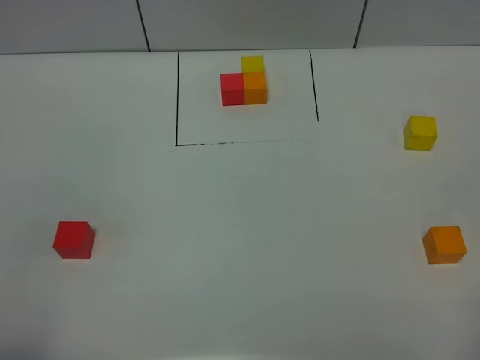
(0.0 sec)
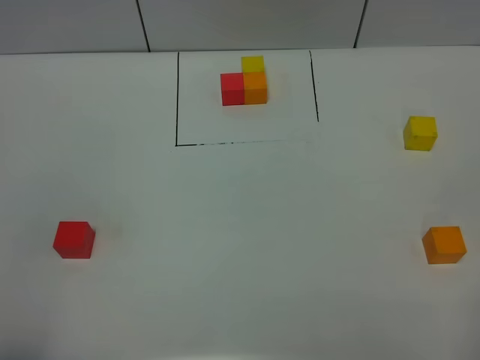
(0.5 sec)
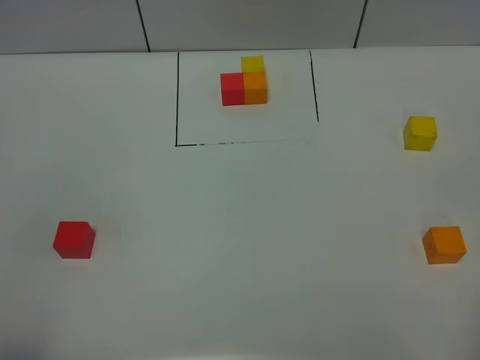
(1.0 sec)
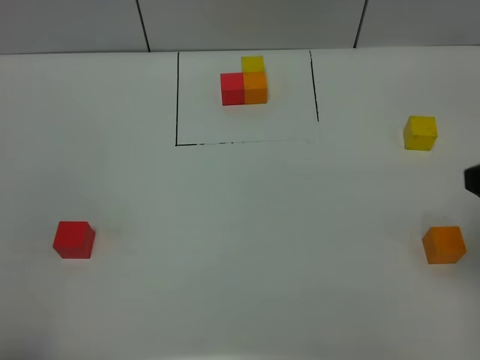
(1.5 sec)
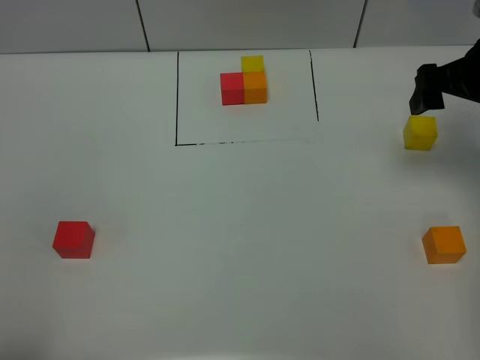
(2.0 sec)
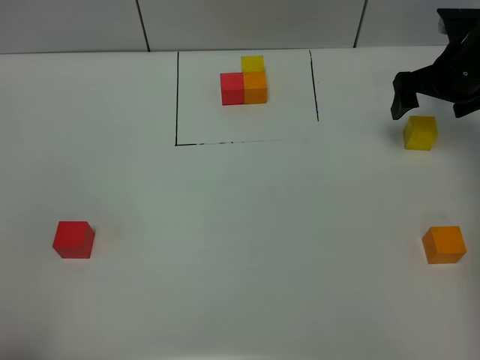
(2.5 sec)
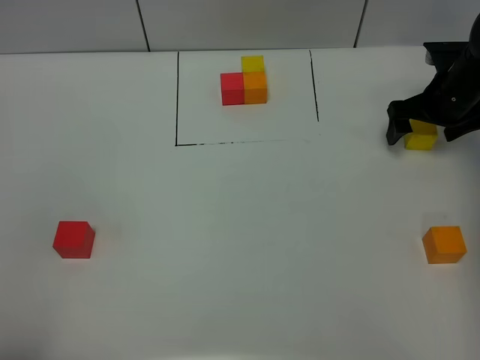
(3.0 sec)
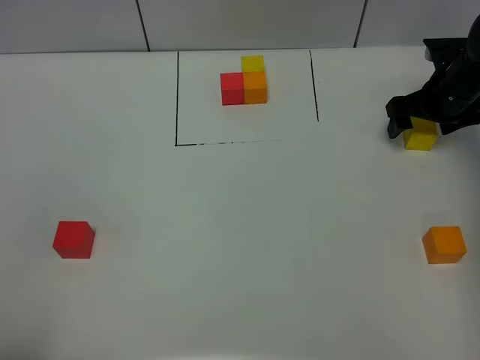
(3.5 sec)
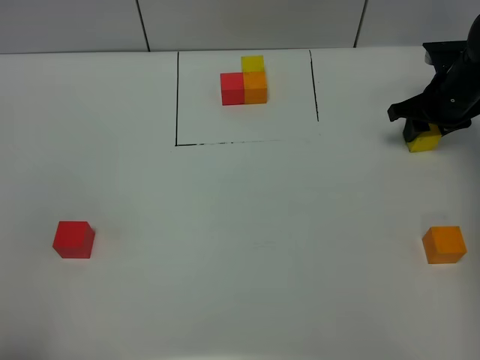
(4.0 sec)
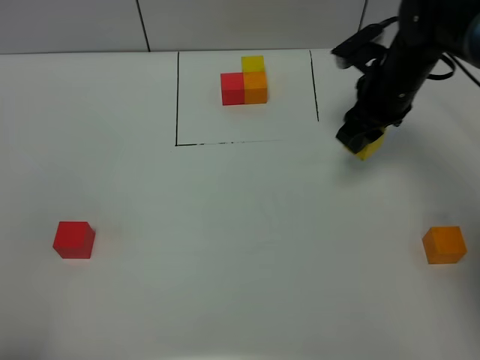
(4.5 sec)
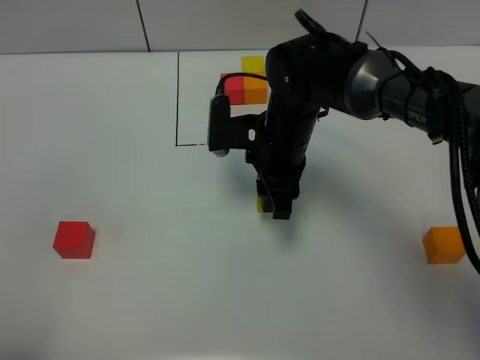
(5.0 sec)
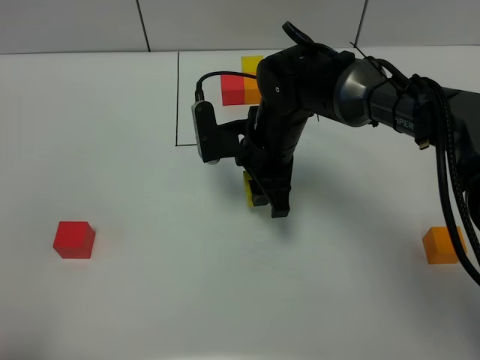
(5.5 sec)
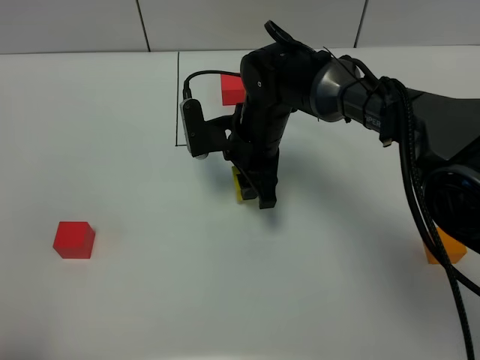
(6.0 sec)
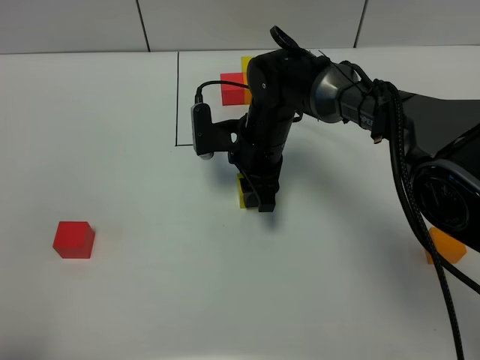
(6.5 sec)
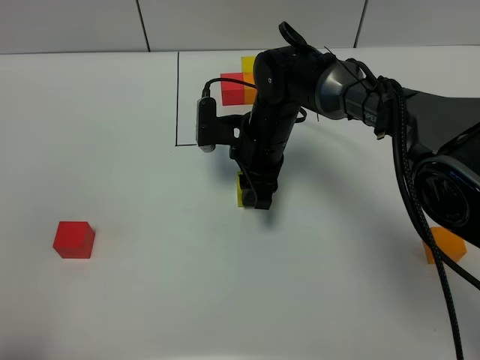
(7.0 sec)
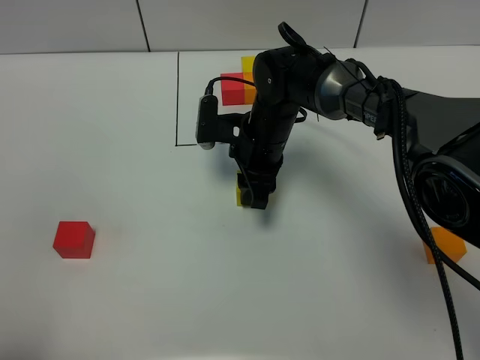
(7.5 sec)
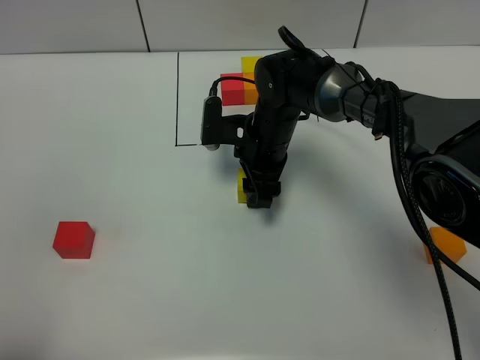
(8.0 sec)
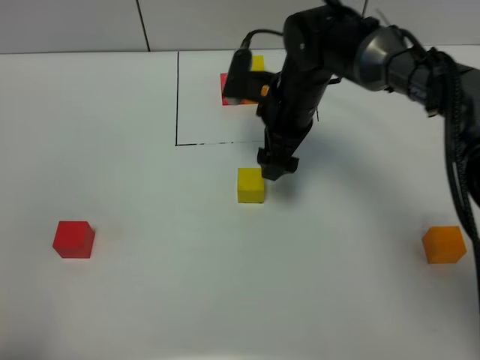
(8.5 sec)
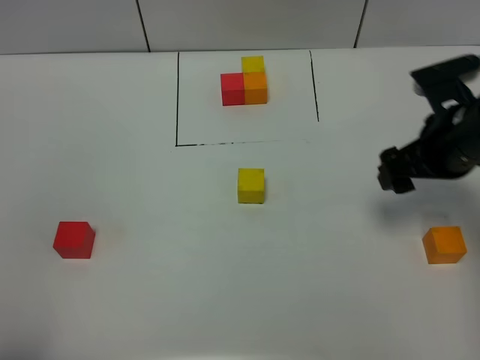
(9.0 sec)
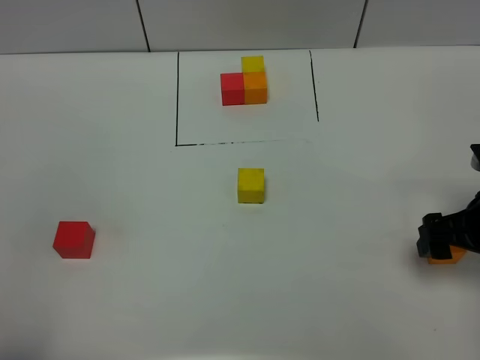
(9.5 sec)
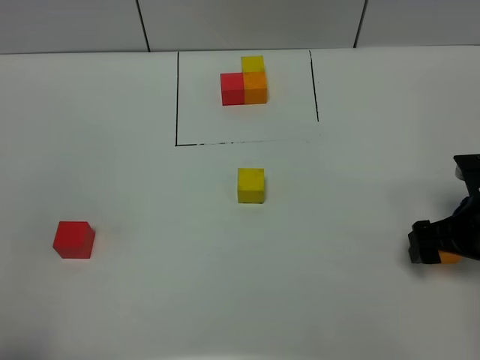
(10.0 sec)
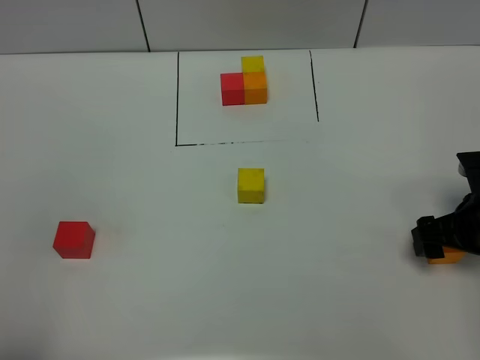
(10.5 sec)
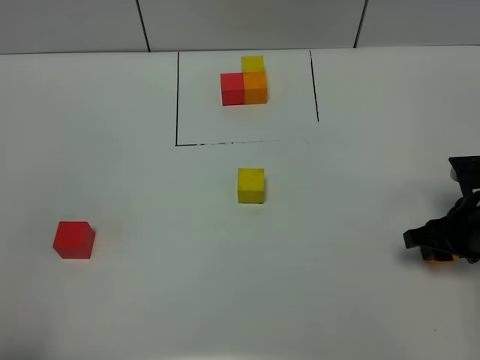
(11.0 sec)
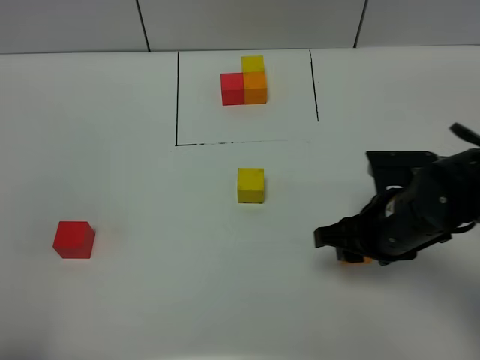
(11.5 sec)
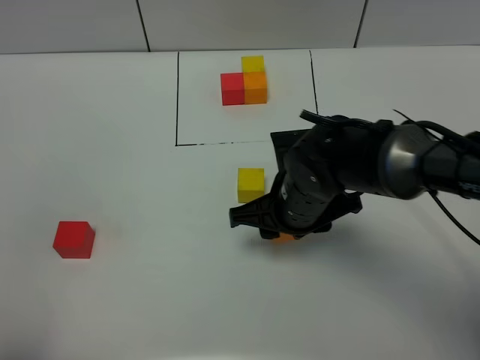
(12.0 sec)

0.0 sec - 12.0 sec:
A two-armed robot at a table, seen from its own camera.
Task of the whole recording: According to the building block template in front, assemble the scattered blocks together.
Step, 0.0 sec - 7.5 sec: Put the yellow build block in the center of the table.
0.0 sec - 2.0 sec: The right gripper travels forward by about 35 cm.
2.0 sec - 4.0 sec: The right gripper travels downward and forward by some 15 cm, and closes up.
4.0 sec - 6.0 sec: The right gripper heads to the left, covering approximately 30 cm.
6.0 sec - 8.0 sec: The right gripper opens up.
8.0 sec - 10.0 sec: The right gripper heads to the right and backward, covering approximately 30 cm, and opens up.
10.0 sec - 12.0 sec: The right gripper goes approximately 25 cm to the left, and closes up.

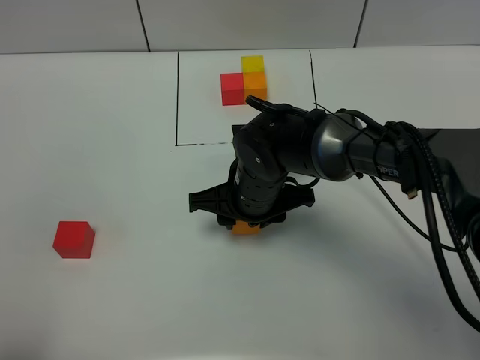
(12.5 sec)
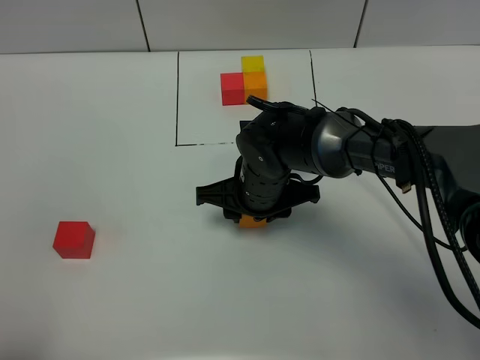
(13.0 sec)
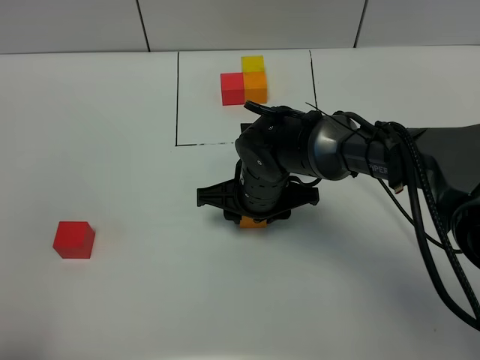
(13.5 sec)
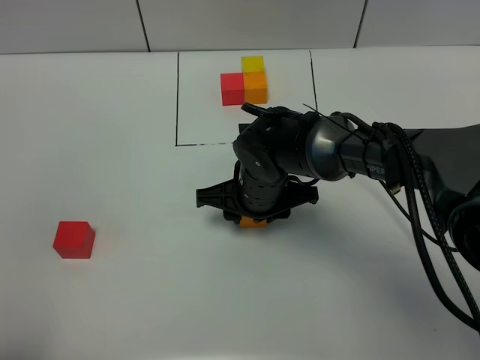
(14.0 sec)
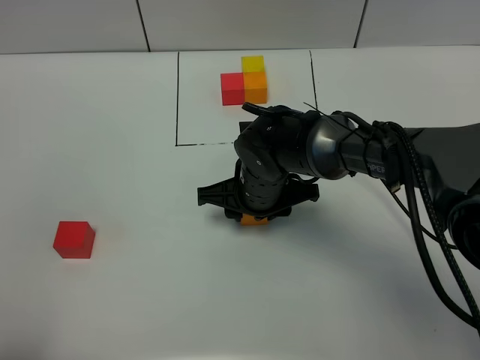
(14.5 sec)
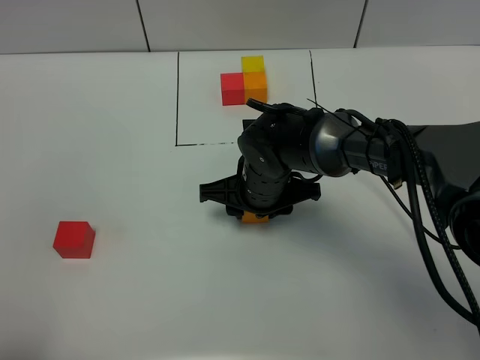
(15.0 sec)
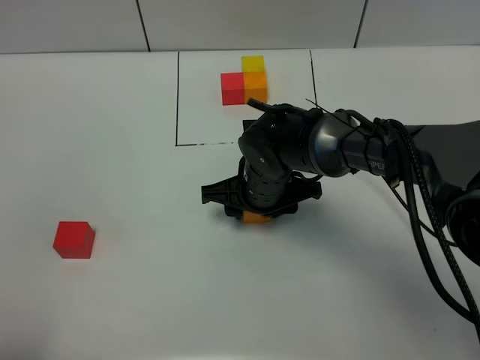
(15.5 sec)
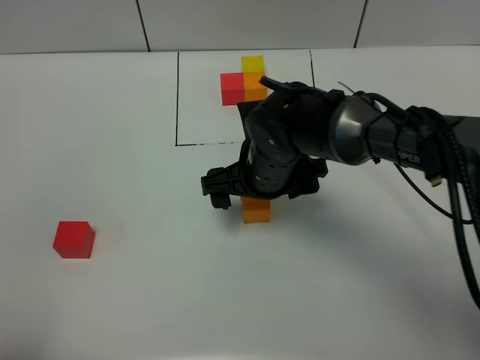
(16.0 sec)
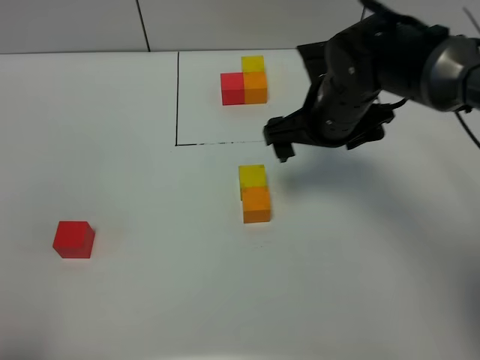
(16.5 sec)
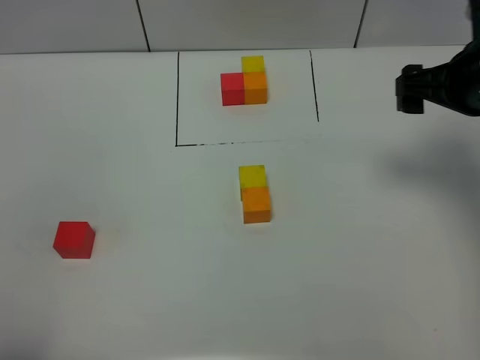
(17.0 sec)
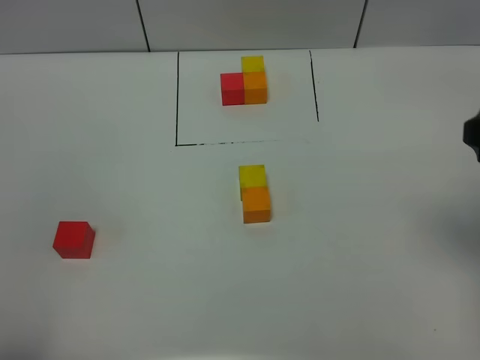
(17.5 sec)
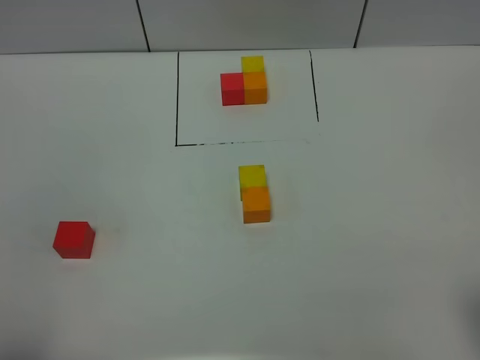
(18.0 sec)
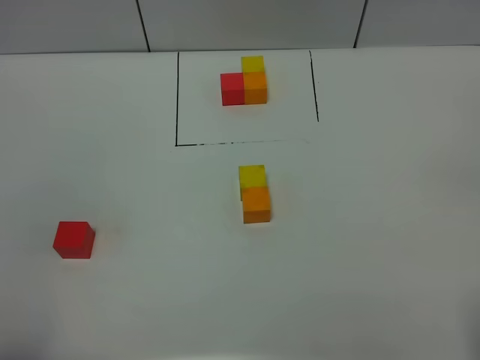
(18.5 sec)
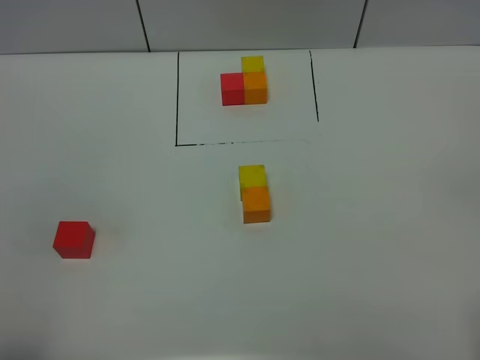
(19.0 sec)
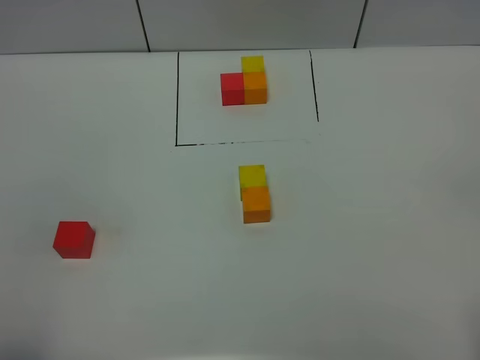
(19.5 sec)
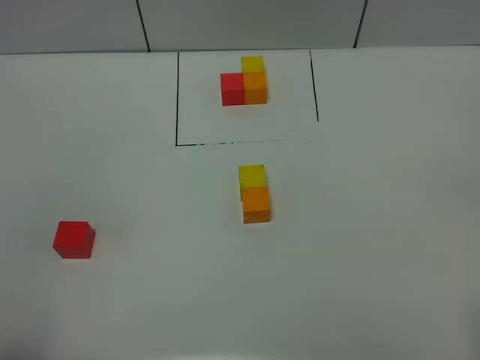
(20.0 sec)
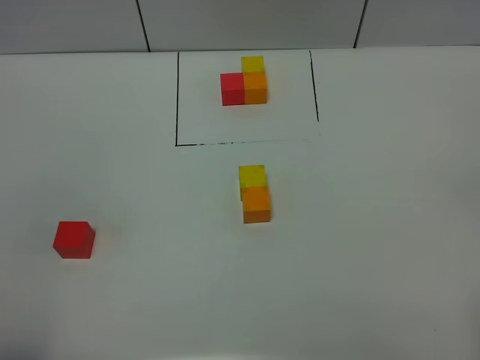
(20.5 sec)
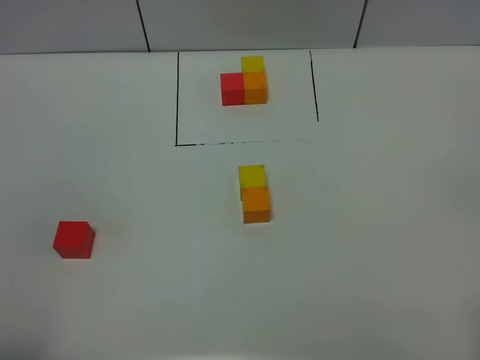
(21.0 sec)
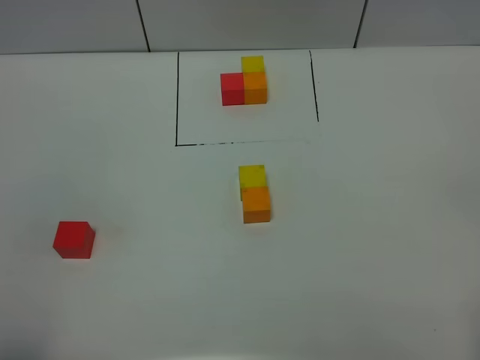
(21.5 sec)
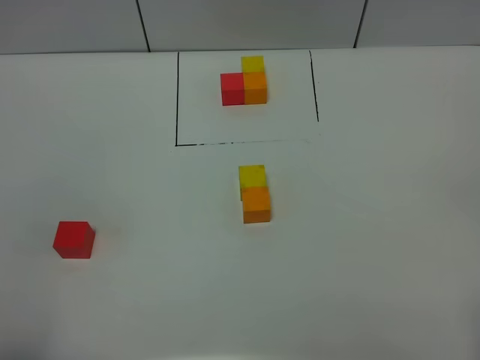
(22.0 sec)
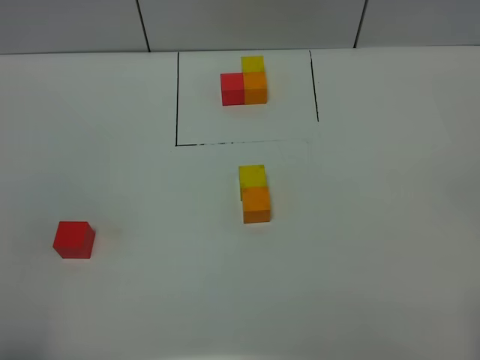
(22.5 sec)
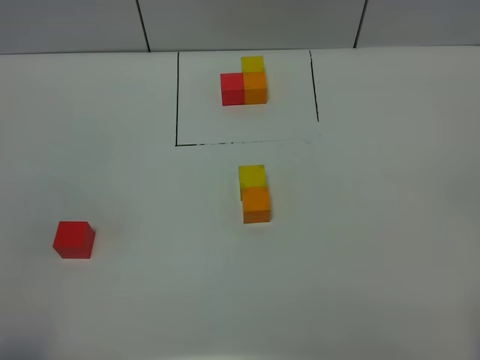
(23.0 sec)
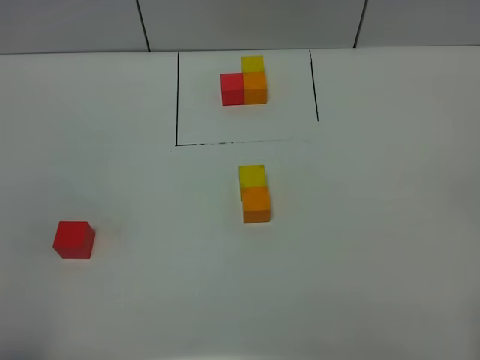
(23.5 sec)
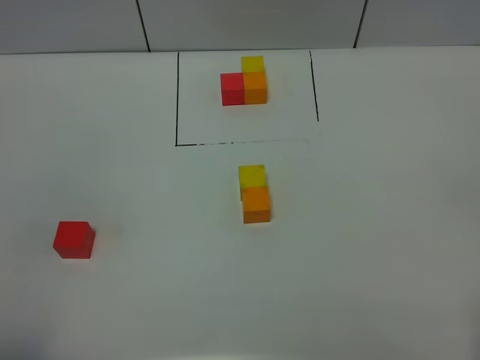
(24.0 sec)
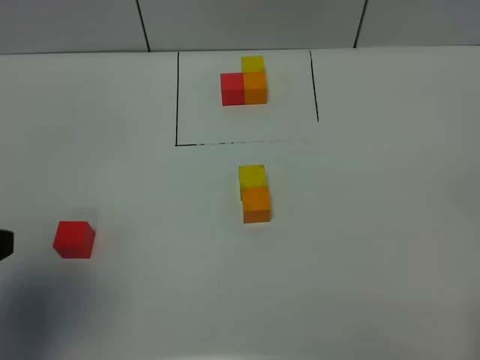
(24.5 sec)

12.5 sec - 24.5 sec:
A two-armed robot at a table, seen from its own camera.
Task of the whole recording: According to the building block template in front, assemble the scattered blocks together.
Step, 12.5 sec - 15.5 sec: Put the orange build block on the behind of the yellow build block.
12.5 sec - 14.5 sec: The grippers move only a little.
14.5 sec - 16.5 sec: The right gripper travels to the right and upward by roughly 15 cm, and opens.
16.5 sec - 18.5 sec: The right gripper travels backward and to the right by about 40 cm.
20.5 sec - 22.5 sec: Both grippers stay about where they are.
22.5 sec - 24.5 sec: The left gripper travels forward by roughly 15 cm.

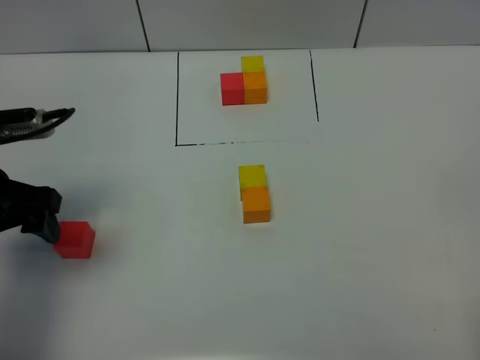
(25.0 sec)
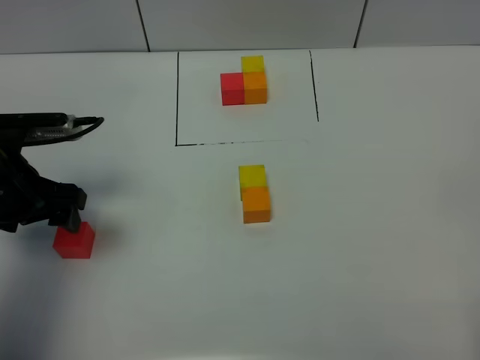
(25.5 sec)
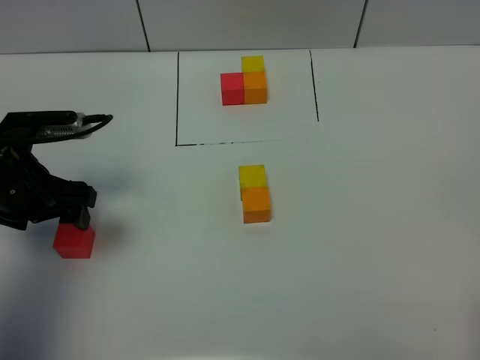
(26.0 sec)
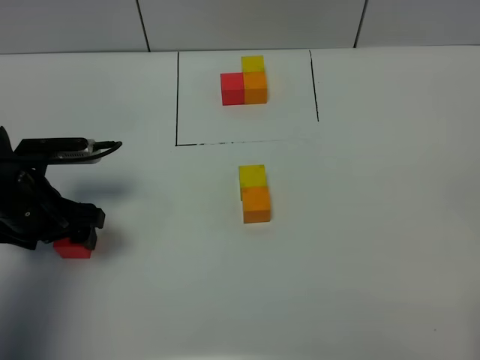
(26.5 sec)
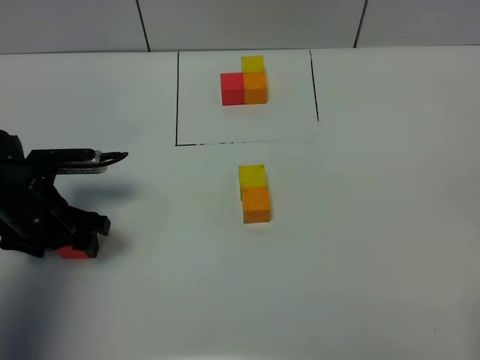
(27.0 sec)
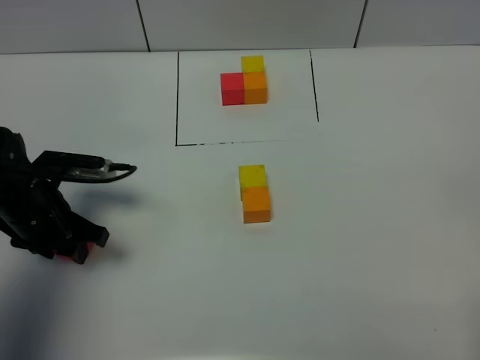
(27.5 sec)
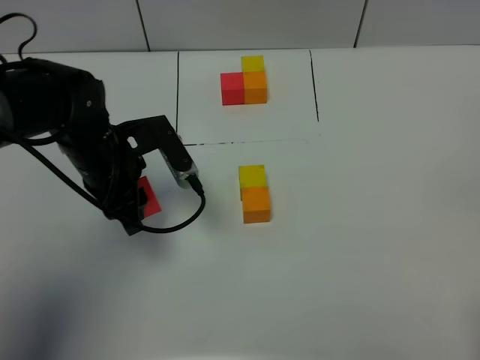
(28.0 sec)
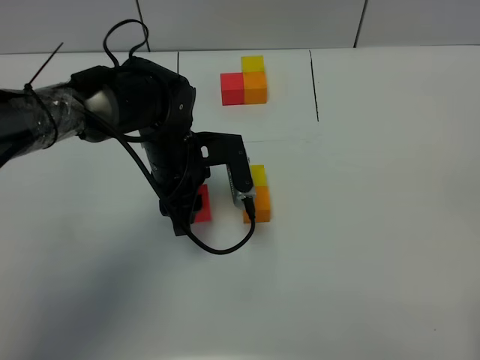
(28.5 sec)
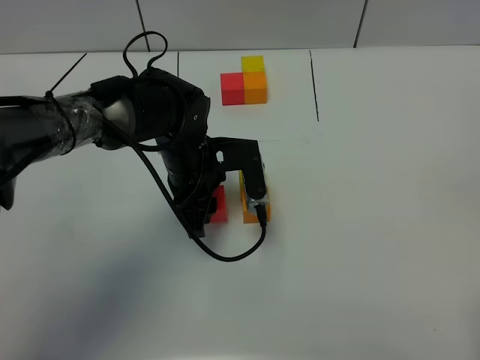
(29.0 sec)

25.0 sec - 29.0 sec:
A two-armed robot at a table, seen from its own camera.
Task of the whole recording: According to the building block template in front, assemble the scattered blocks together.
25.0 sec - 27.0 sec: The left gripper moves downward, about 10 cm.
27.0 sec - 29.0 sec: The left gripper goes approximately 20 cm to the right, and closes its fingers.
